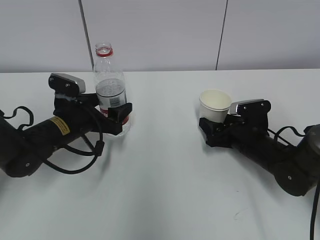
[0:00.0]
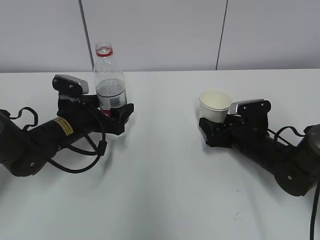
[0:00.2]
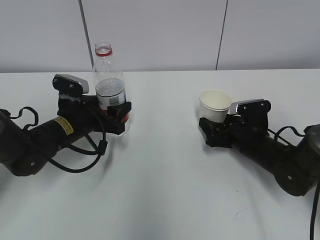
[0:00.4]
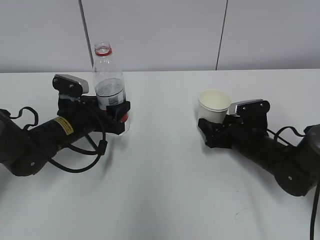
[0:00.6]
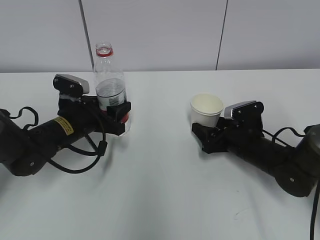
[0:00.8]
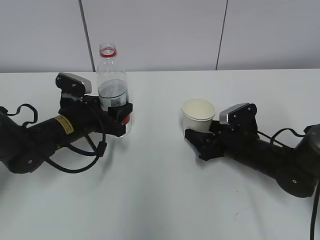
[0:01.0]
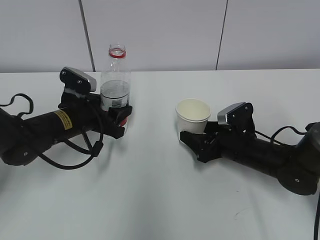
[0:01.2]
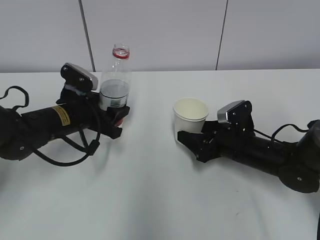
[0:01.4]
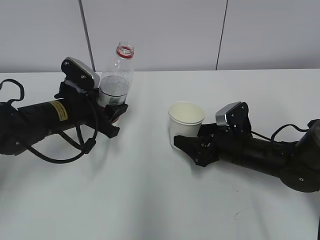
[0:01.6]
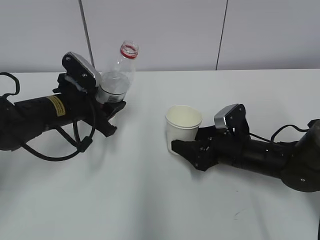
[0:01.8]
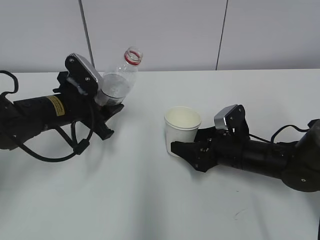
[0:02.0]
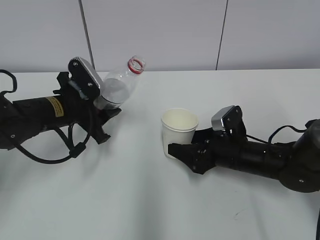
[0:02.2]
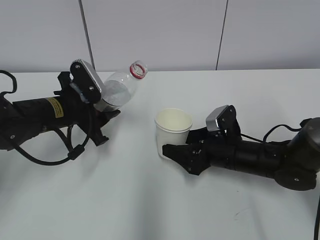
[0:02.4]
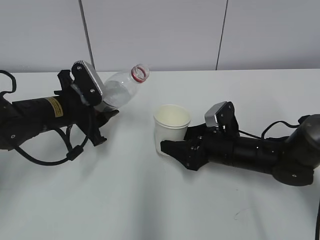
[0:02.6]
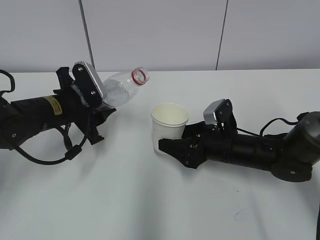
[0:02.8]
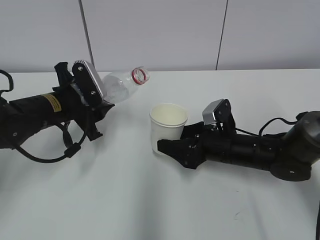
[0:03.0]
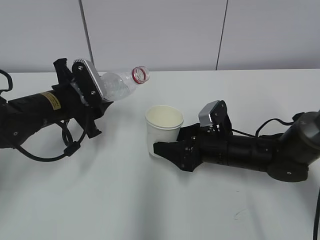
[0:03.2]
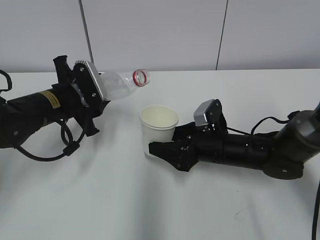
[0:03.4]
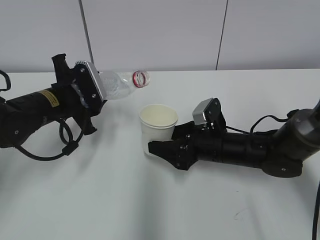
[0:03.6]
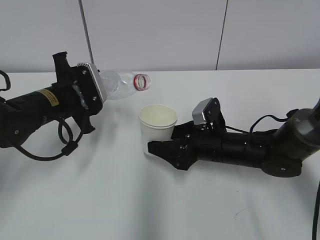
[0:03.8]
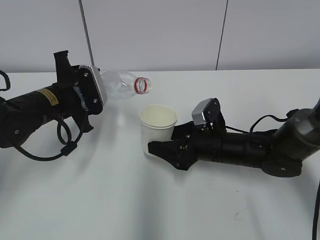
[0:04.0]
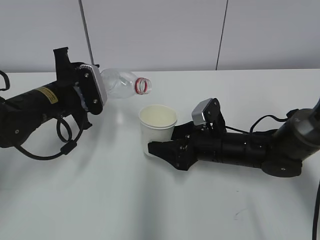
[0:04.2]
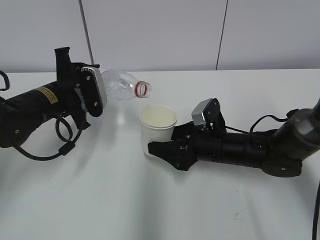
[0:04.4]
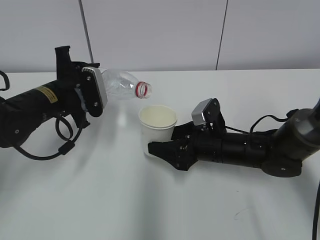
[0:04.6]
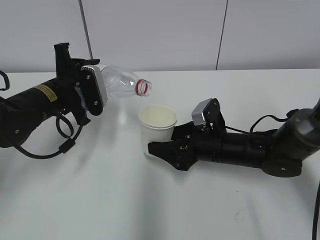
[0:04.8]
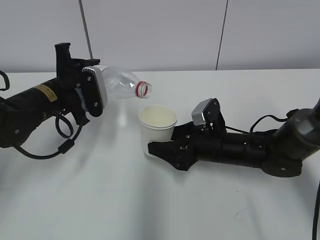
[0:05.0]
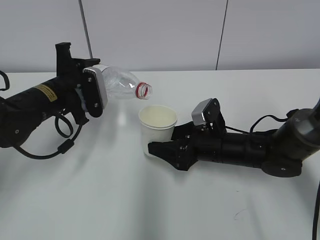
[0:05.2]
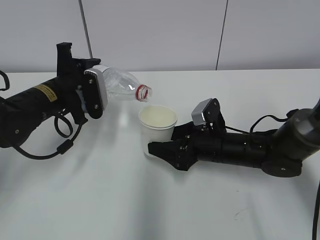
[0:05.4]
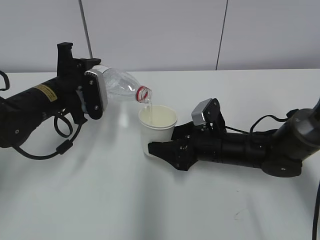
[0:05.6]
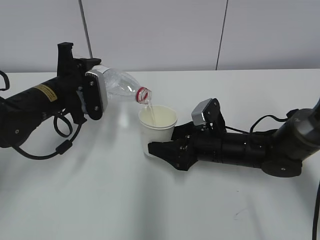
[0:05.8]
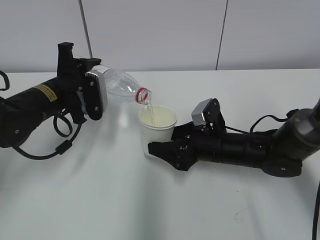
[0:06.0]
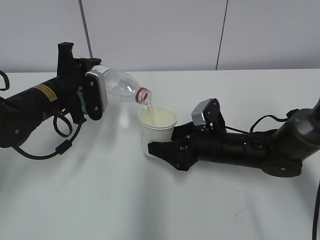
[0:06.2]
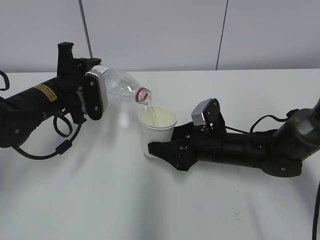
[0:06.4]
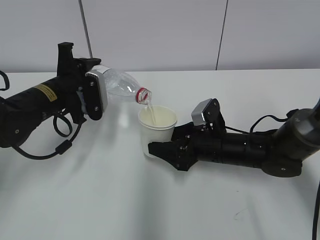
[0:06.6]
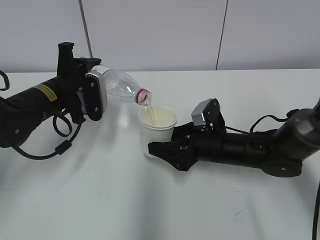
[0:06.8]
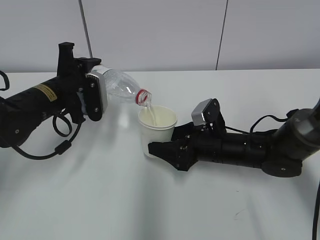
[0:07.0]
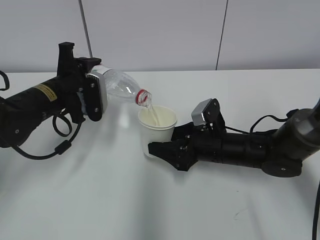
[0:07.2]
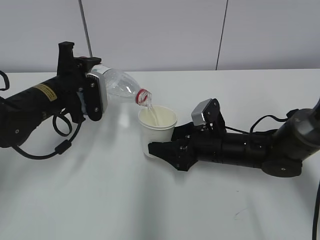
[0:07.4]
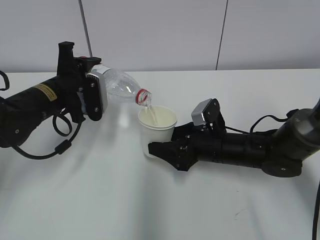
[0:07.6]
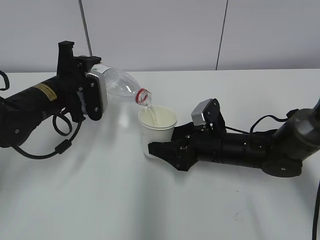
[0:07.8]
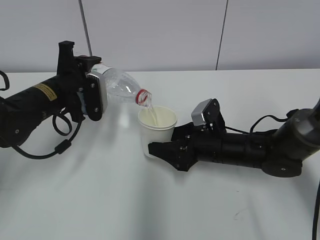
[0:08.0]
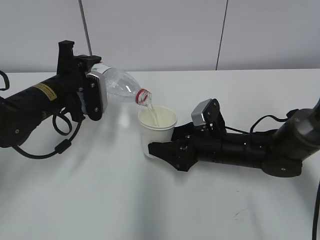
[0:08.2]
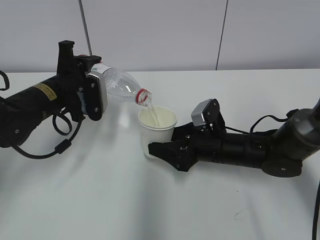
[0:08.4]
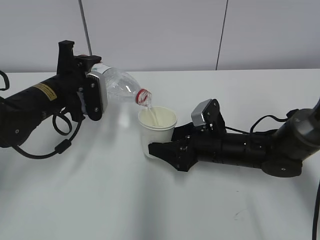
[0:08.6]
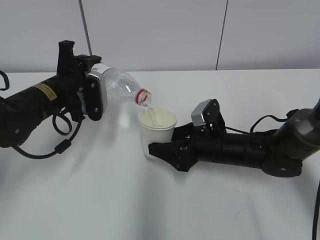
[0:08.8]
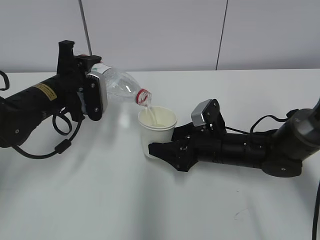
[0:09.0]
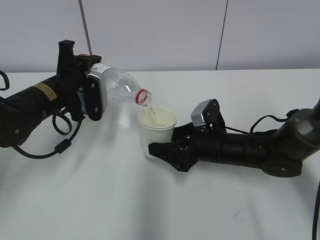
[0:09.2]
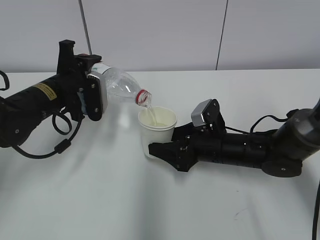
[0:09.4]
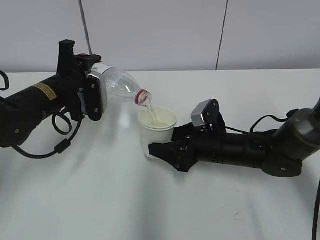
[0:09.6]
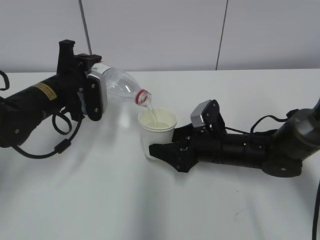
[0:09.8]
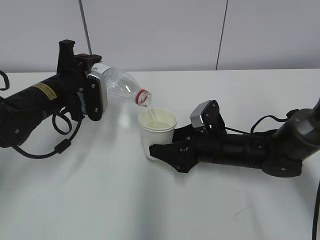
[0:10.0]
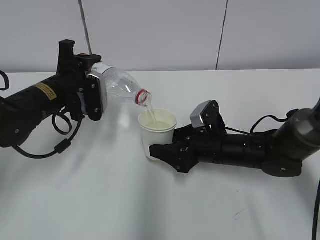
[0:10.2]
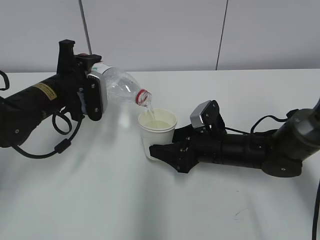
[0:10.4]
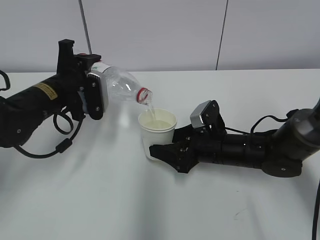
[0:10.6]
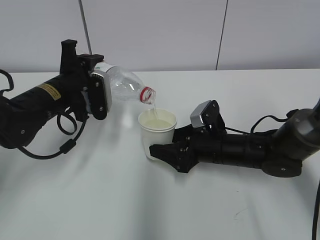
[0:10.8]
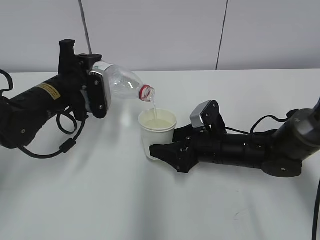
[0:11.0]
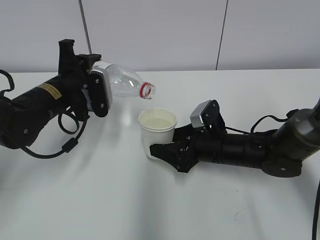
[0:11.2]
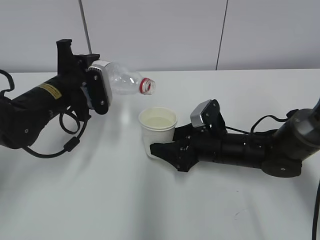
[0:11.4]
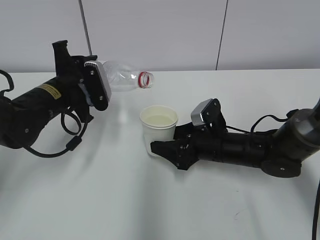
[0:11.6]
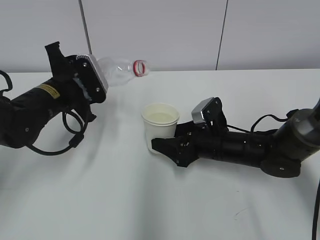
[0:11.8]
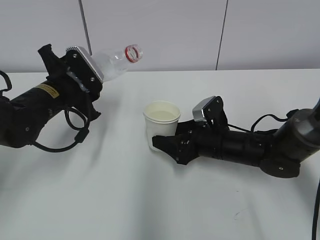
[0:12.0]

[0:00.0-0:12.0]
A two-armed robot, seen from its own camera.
Step, 0:00.0 to 0:03.0: Lift the paper cup with the right hand.
Step, 0:03.2 to 0:07.6: Fill water with the right hand.
Step, 0:03.2 to 0:07.6: Pour water with the left hand.
0:00.0 to 0:01.6: The left gripper closes up.
0:04.4 to 0:06.0: There are only small adjustments of the grippers.
0:06.0 to 0:10.4: Neither gripper changes place.

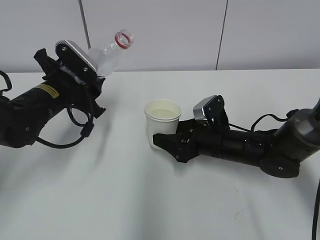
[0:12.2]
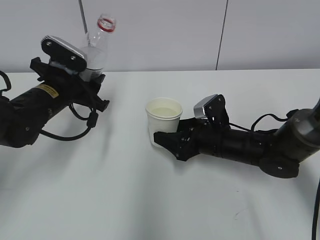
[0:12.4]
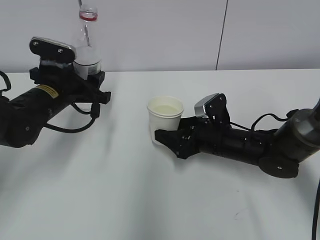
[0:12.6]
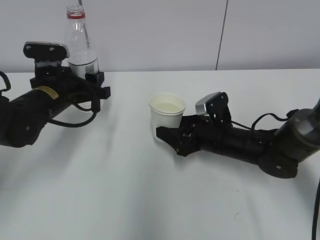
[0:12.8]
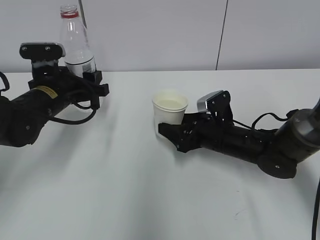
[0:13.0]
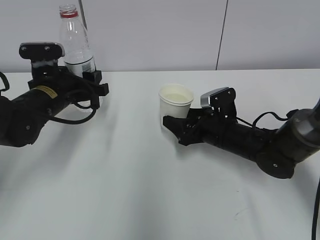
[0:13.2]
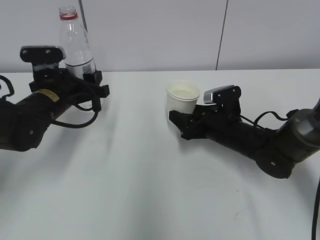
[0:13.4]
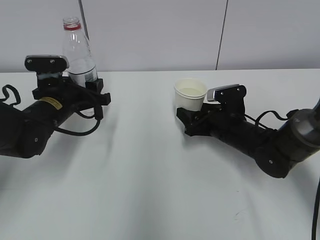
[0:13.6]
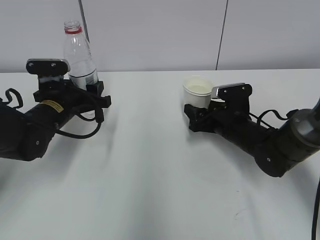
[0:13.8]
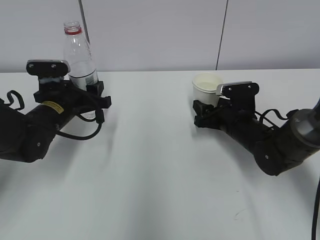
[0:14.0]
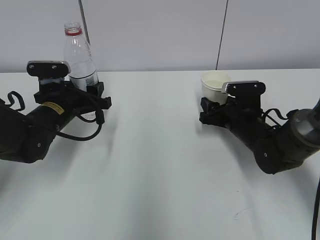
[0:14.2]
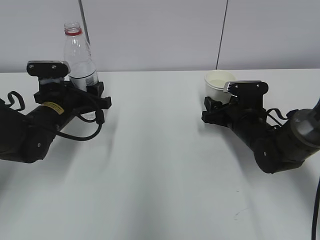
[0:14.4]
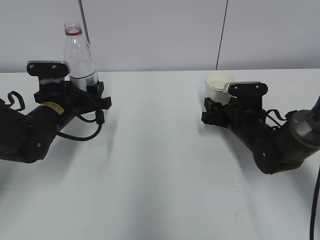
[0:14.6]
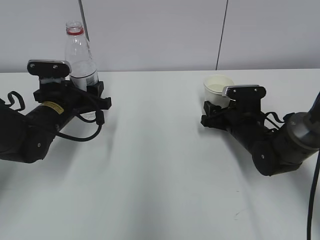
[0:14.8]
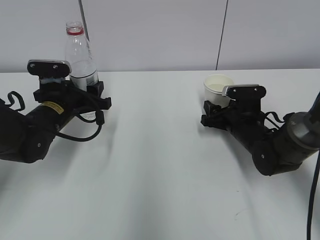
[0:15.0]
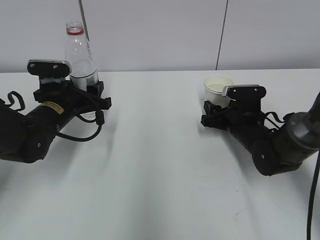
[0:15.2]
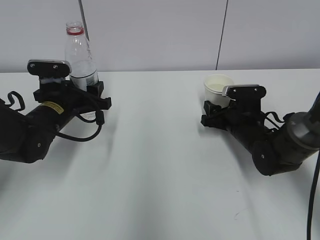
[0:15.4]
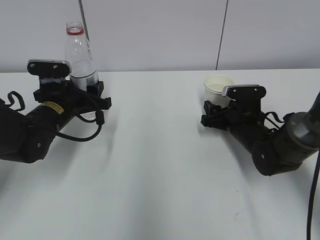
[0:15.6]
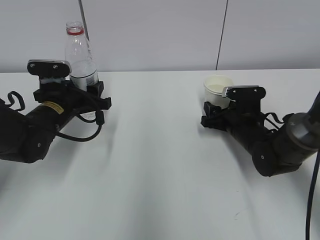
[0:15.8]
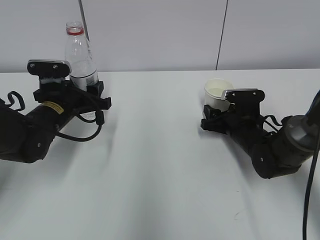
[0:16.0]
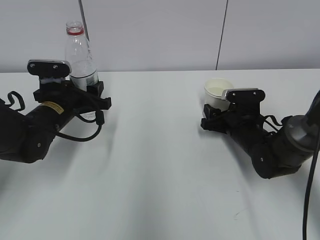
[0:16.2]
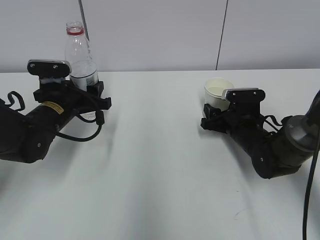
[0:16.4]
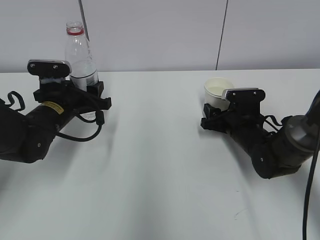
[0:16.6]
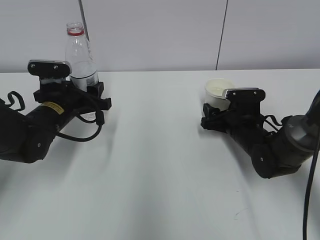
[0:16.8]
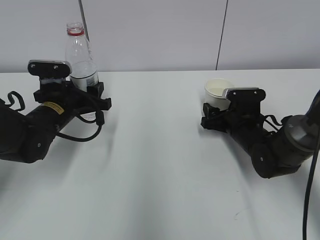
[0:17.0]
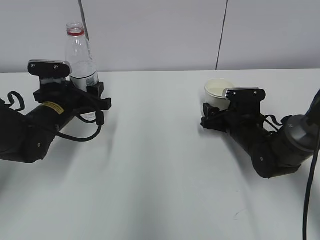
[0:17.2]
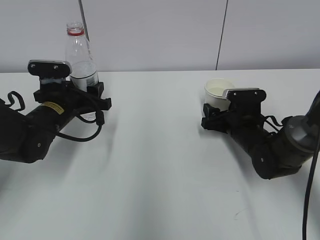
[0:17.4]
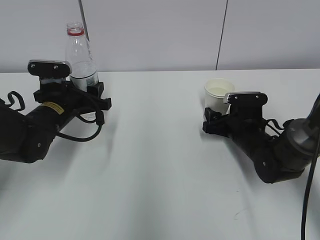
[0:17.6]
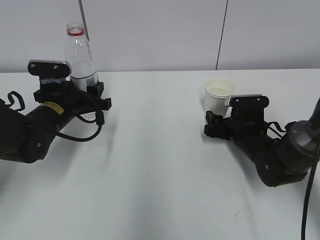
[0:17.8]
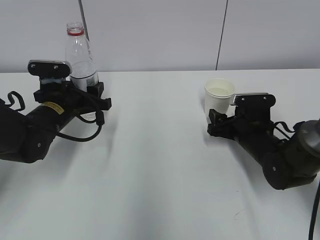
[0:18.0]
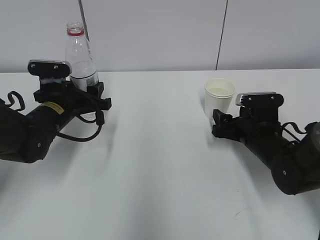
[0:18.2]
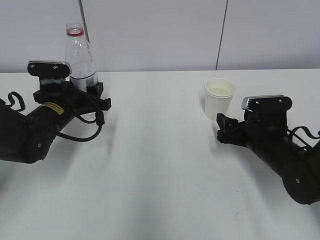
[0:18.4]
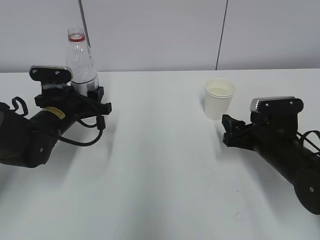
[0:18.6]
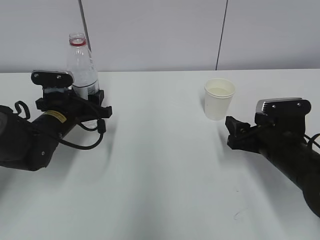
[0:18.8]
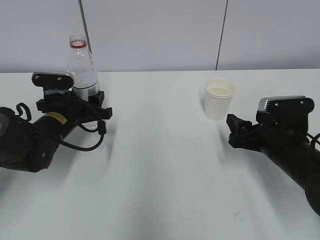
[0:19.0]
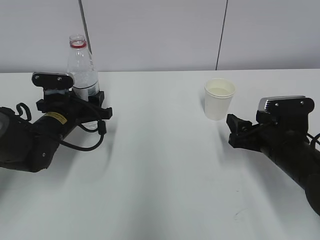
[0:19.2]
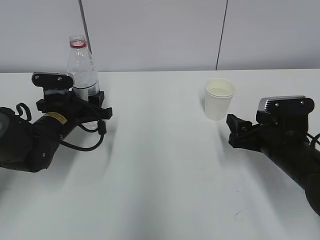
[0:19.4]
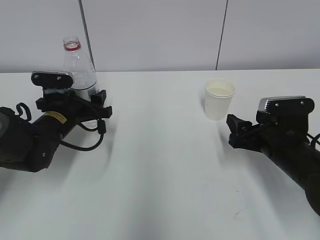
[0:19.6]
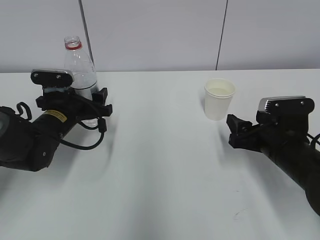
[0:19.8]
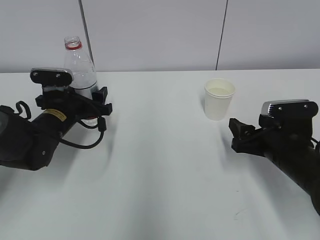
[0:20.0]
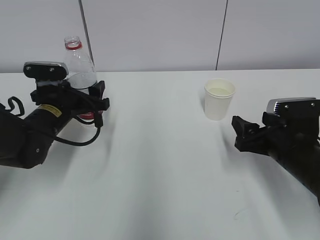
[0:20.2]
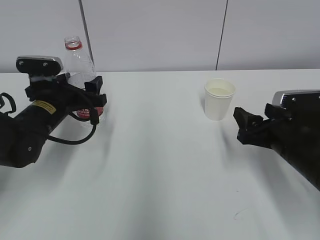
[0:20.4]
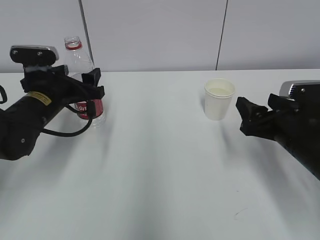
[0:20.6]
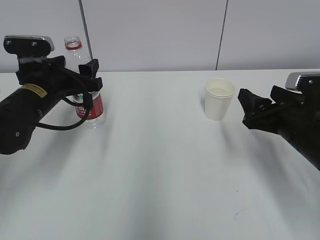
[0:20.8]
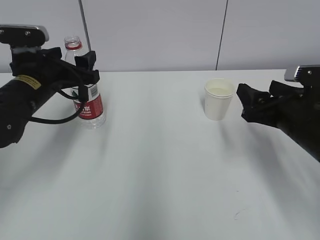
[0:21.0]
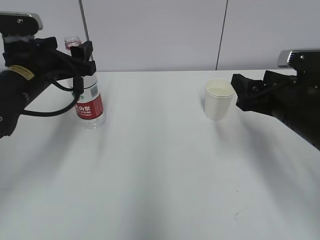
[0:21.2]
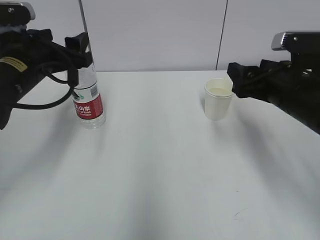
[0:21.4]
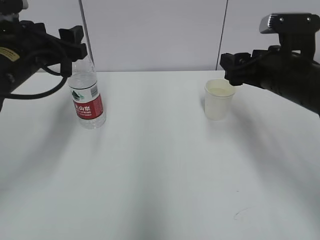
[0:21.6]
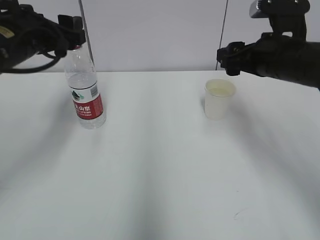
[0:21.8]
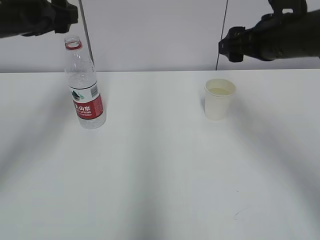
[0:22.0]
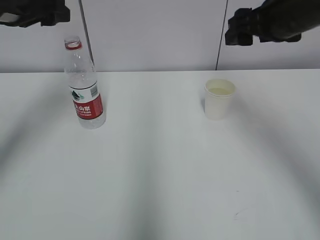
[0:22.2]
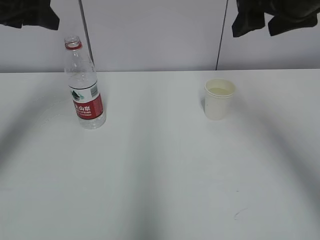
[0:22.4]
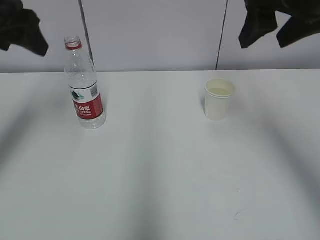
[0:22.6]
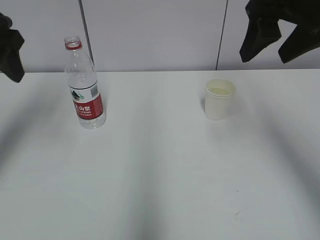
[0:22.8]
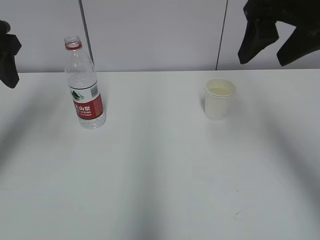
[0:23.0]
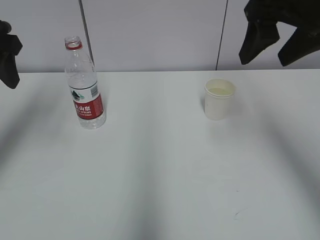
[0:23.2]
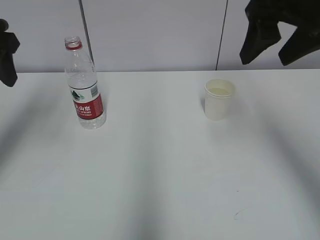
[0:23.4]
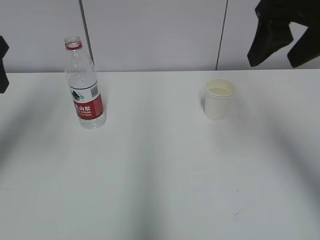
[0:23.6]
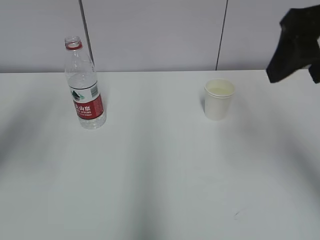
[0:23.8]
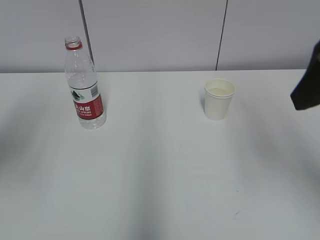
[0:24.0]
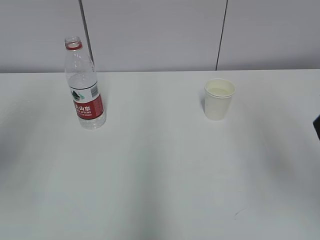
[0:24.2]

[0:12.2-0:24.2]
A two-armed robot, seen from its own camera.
Step, 0:12.6 to 0:14.8: Place the water bottle with the left hand.
0:13.8 to 0:15.2: The grippers stay close to where they were, moving slightly.
0:15.2 to 0:16.6: Neither gripper changes place.
0:16.6 to 0:18.2: The right gripper shifts by roughly 5 cm.
0:18.2 to 0:19.8: The left gripper opens. Meanwhile the right gripper moves backward, some 5 cm.
0:19.8 to 0:21.2: Both grippers travel together upward, some 10 cm.
0:21.2 to 0:22.6: The right gripper moves upward, roughly 20 cm. The left gripper is displaced upward and to the left by about 15 cm.
0:22.6 to 0:24.2: Both grippers travel together backward, approximately 15 cm.
